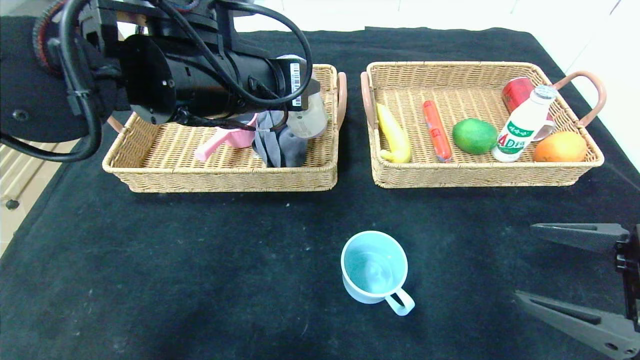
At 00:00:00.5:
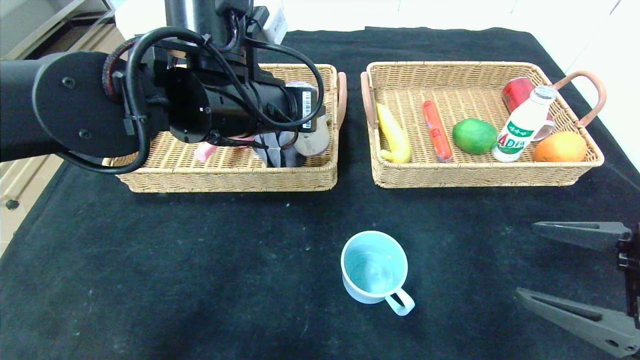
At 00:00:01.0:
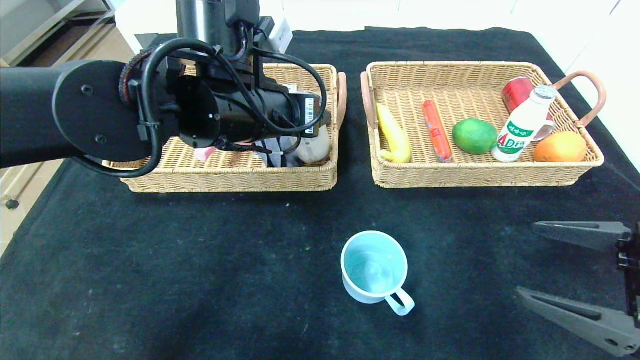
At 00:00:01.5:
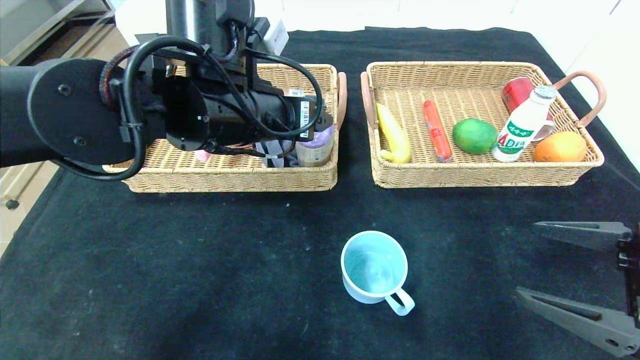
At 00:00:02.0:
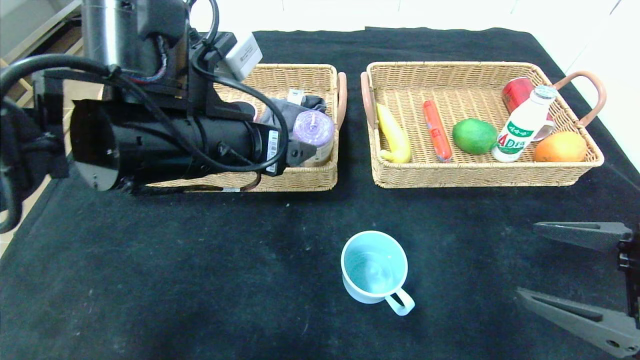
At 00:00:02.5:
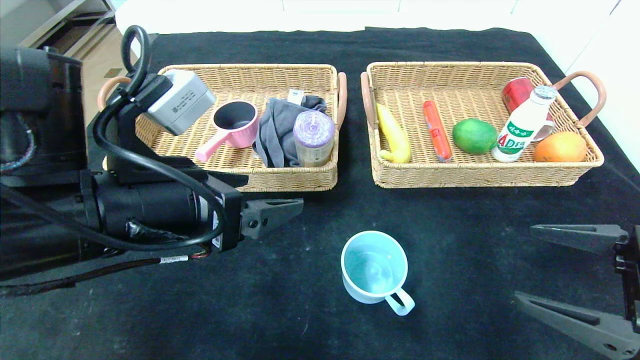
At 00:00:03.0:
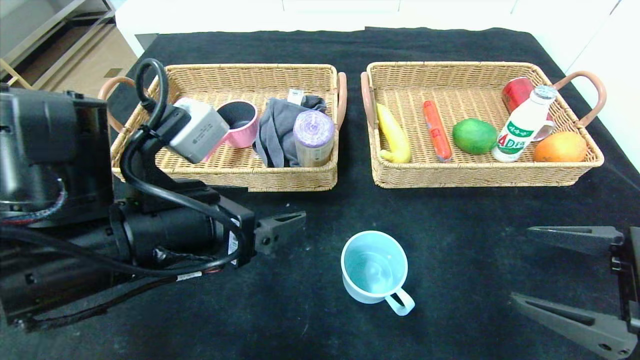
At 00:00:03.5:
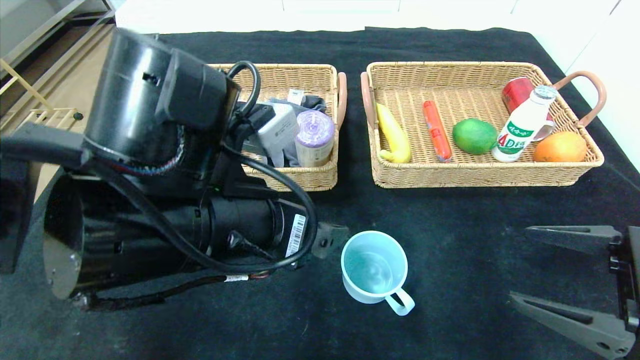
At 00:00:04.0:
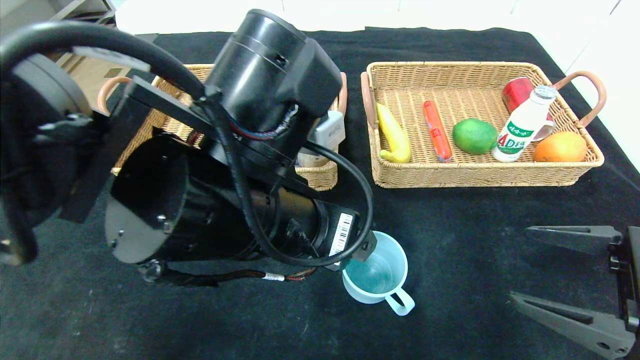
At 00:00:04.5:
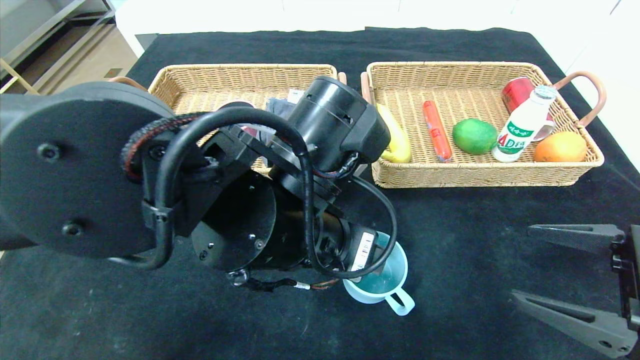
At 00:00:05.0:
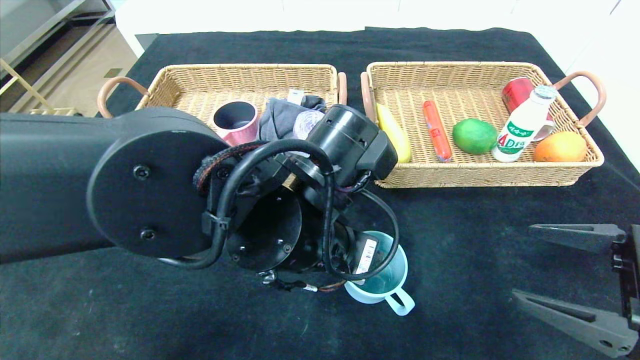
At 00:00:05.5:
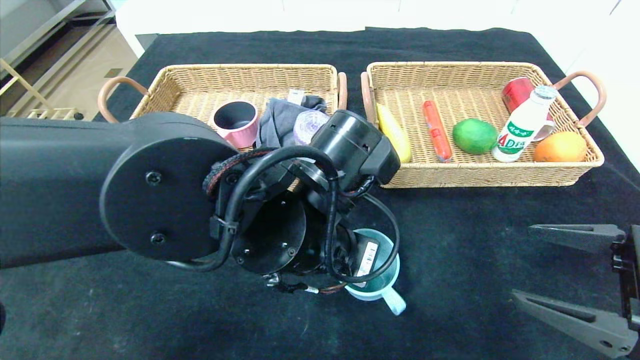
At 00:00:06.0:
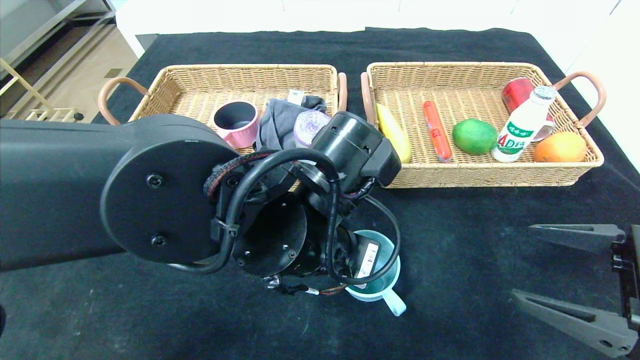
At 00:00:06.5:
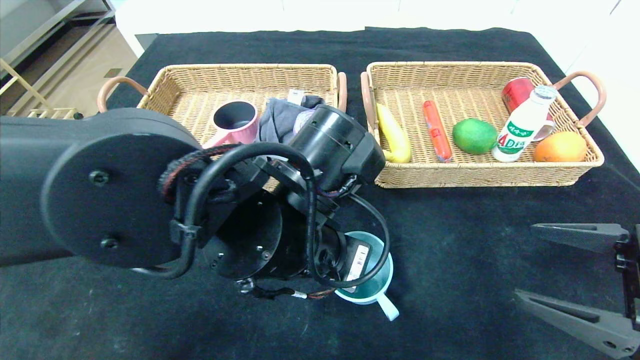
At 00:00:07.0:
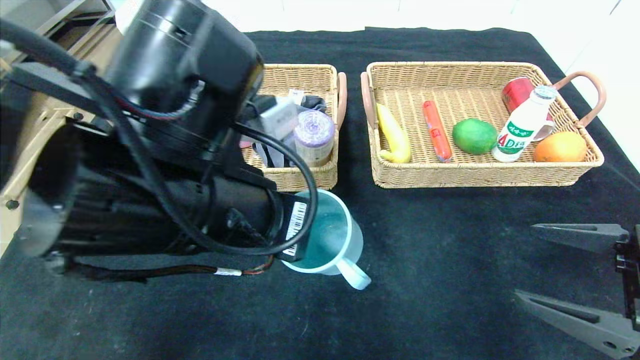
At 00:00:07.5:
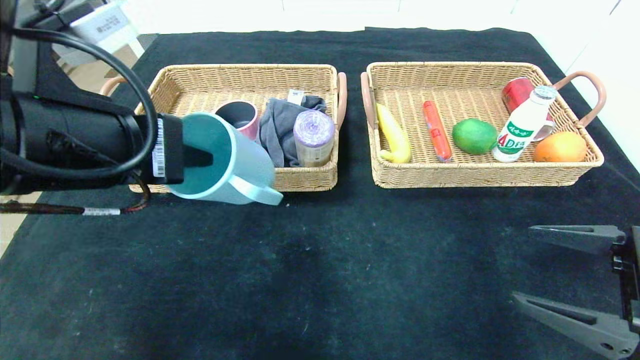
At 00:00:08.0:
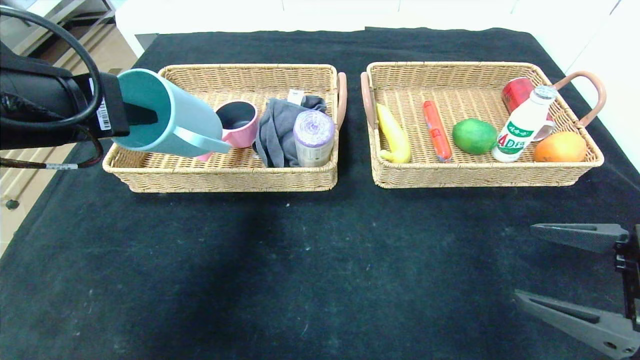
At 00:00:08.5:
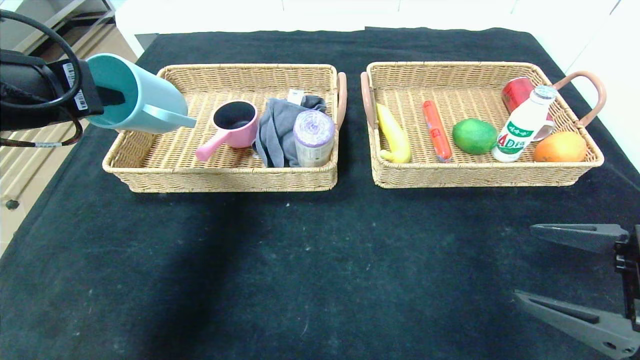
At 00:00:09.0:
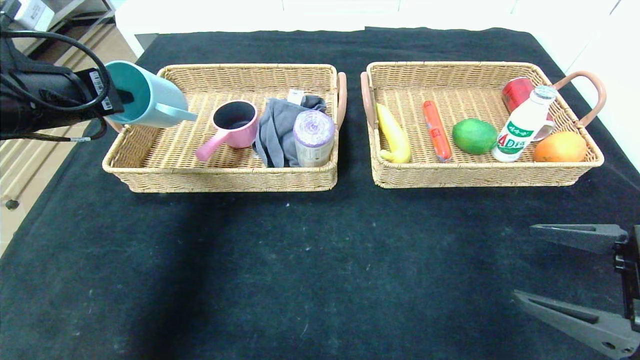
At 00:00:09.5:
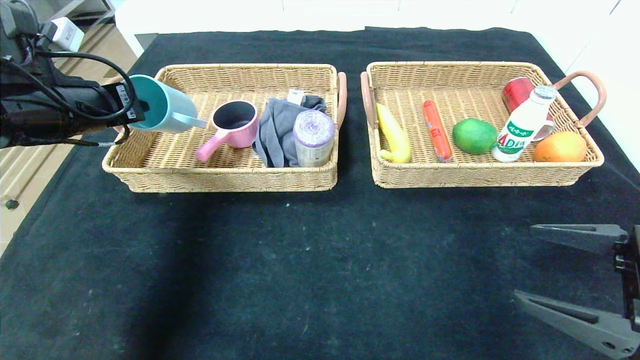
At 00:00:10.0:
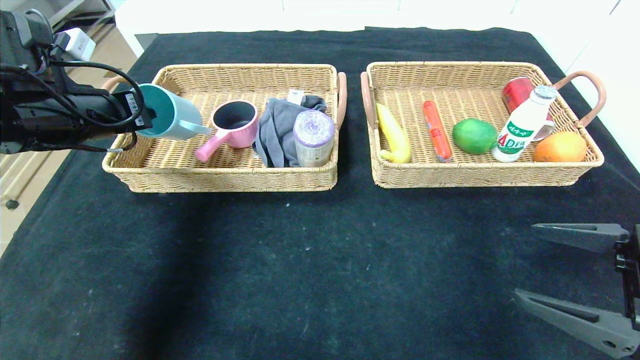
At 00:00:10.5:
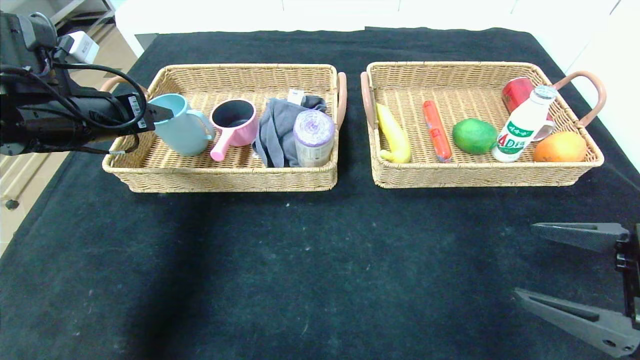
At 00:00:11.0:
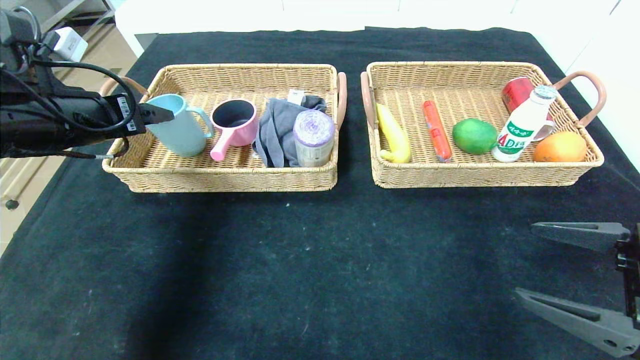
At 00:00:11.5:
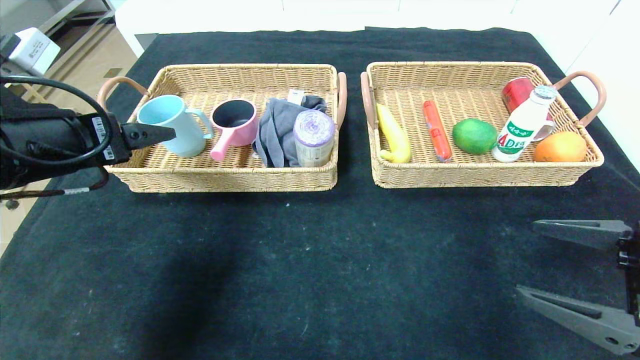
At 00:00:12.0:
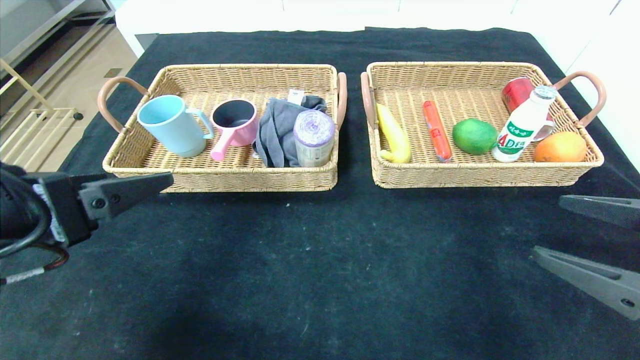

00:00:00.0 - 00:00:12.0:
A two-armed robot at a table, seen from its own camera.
Step, 00:00:00.0 - 00:00:02.5: Pick up the purple garbage bag and put it in the left basket.
00:00:00.0 - 00:00:02.0: The left gripper moves roughly 5 cm, and opens.
00:00:02.0 - 00:00:04.0: The left gripper heads to the right and backward, covering some 10 cm.
00:00:04.0 - 00:00:06.0: The left gripper ends up approximately 5 cm from where it was, and closes up.
00:00:06.0 - 00:00:08.0: The left gripper shifts approximately 25 cm to the left and upward.
00:00:08.0 - 00:00:10.0: The left gripper goes approximately 15 cm forward and to the left.
00:00:10.0 - 00:00:12.0: The left gripper moves backward, approximately 20 cm, and opens its fingers.

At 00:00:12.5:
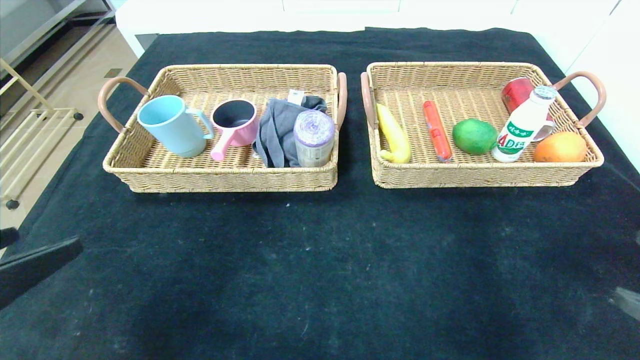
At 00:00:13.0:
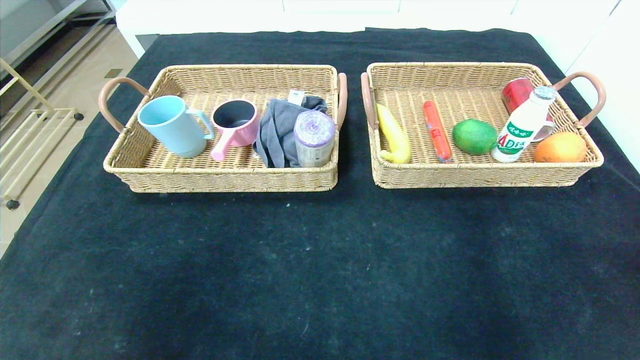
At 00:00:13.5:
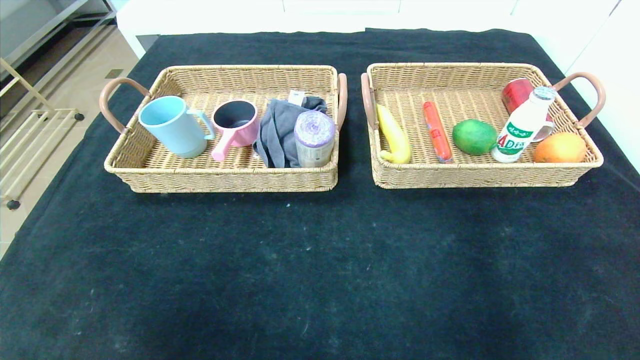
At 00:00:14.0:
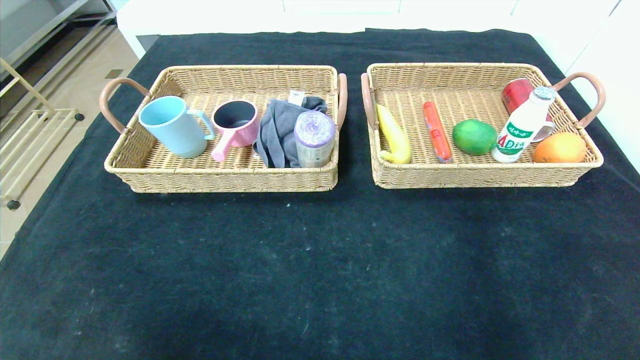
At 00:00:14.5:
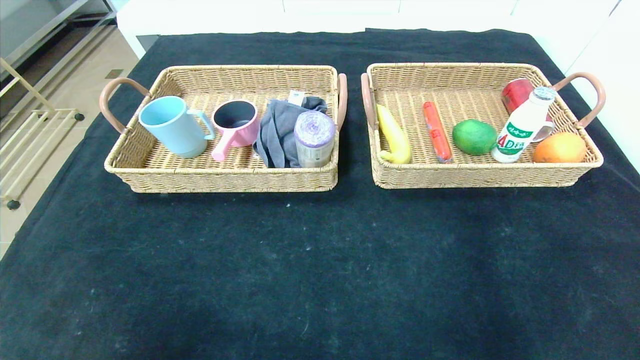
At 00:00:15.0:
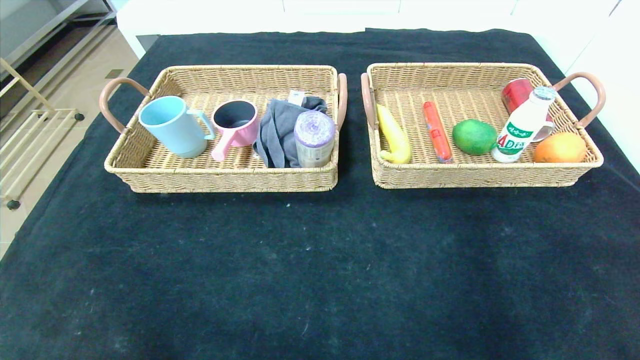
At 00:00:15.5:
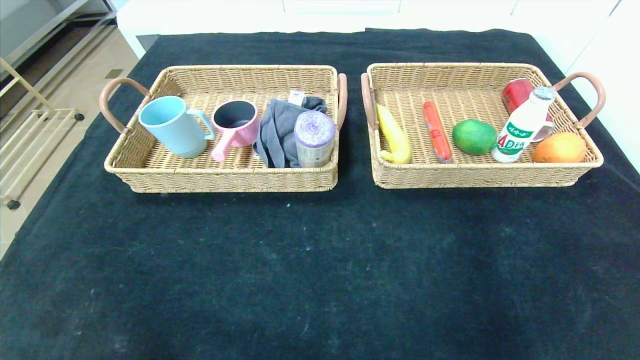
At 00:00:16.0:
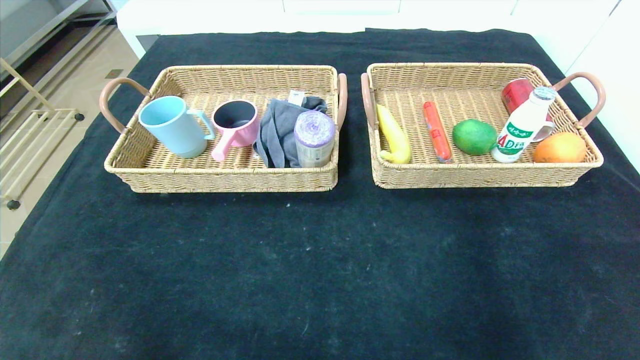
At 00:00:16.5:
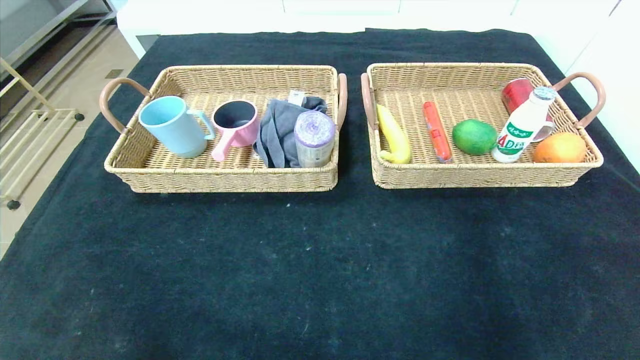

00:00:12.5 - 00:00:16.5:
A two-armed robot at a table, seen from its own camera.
00:00:12.5 - 00:00:14.5: The left gripper moves downward and backward, some 15 cm. The right gripper moves backward and downward, roughly 15 cm.
